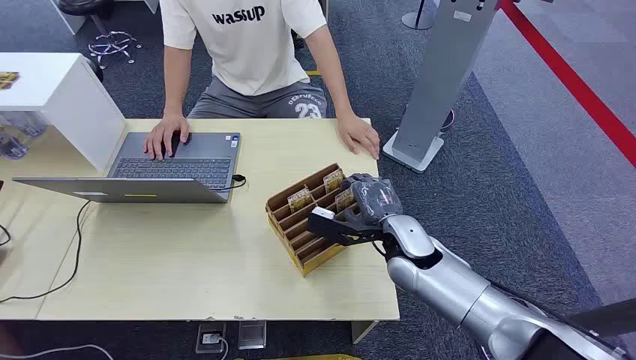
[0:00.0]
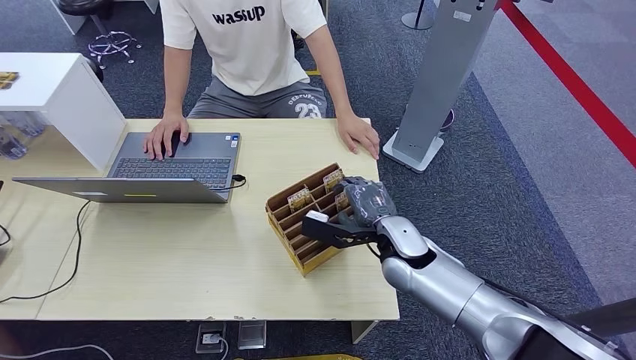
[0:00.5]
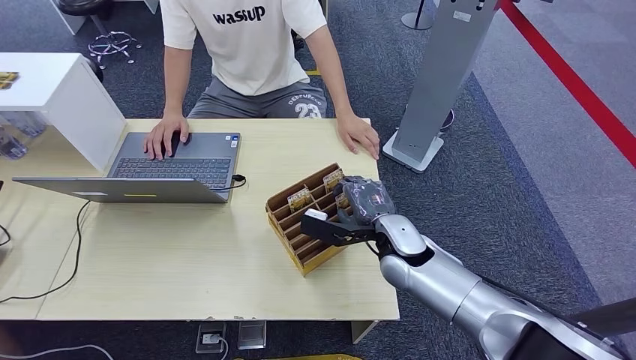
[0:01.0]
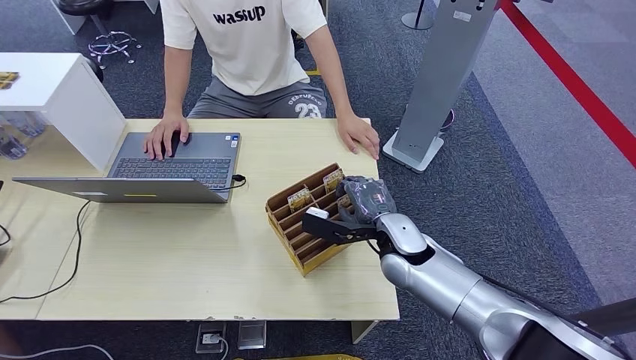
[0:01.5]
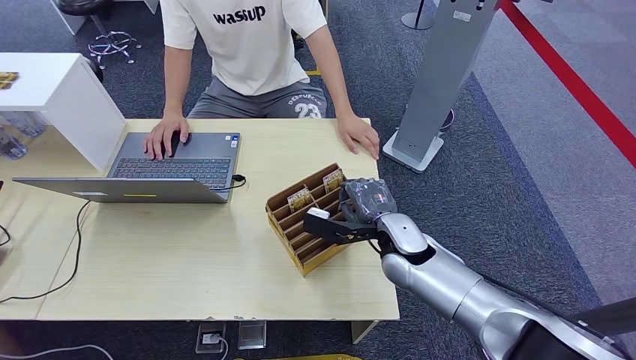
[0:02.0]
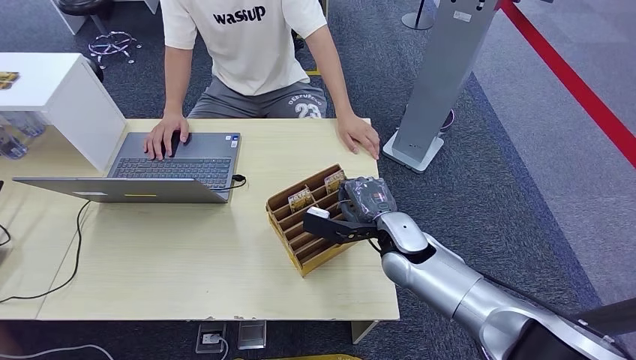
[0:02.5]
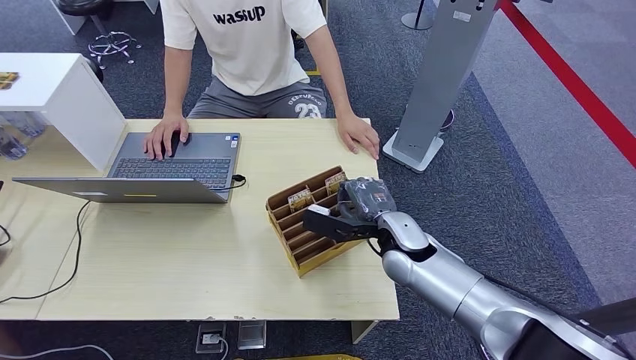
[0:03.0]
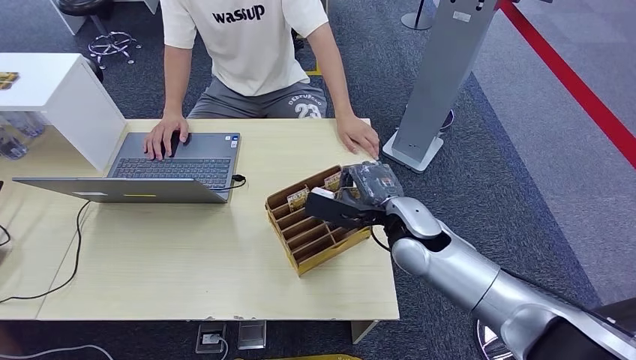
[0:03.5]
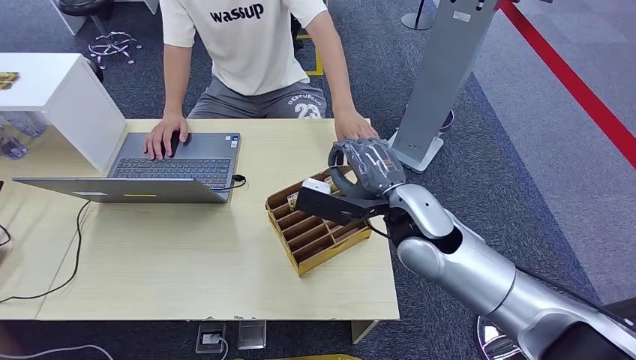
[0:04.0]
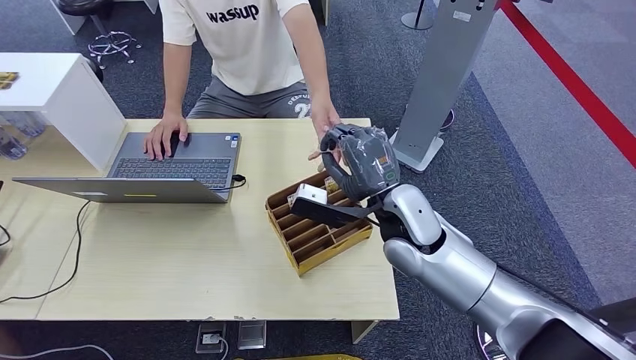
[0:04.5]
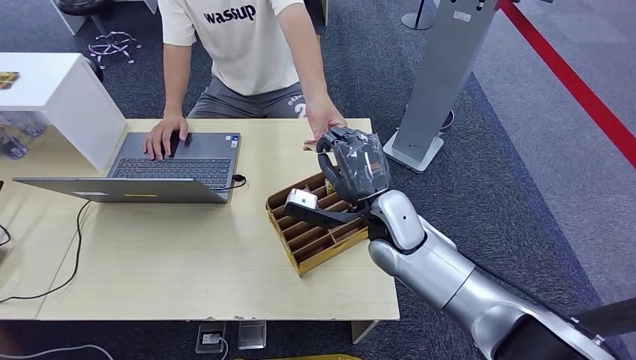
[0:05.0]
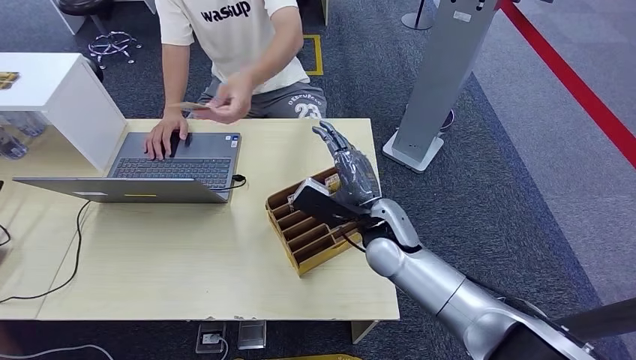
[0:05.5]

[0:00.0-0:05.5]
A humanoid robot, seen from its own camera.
Task of the whole recording: Pick up the card and hand it over to the target person.
Step, 0:00.0 to 0:04.0: Pick up the key card from the card box.
Step, 0:04.5 to 0:05.5: Hand the key card to the target.
0:02.0 to 0:03.5: The right hand moves upward, some 10 cm.
0:03.5 to 0:05.5: The right hand heads downward, covering approximately 10 cm.
